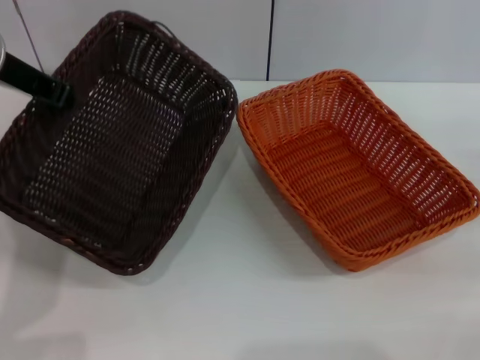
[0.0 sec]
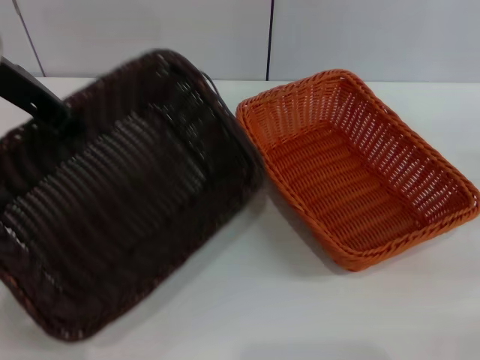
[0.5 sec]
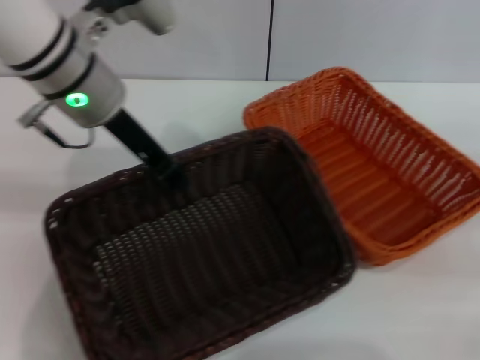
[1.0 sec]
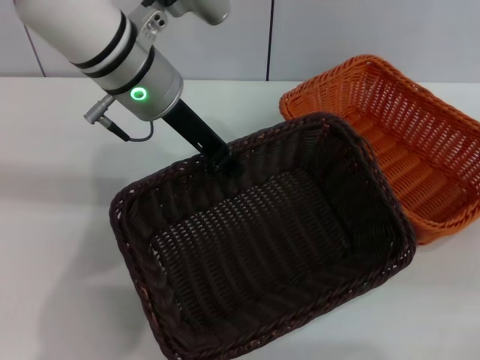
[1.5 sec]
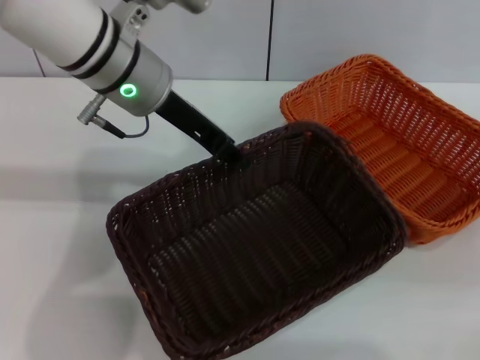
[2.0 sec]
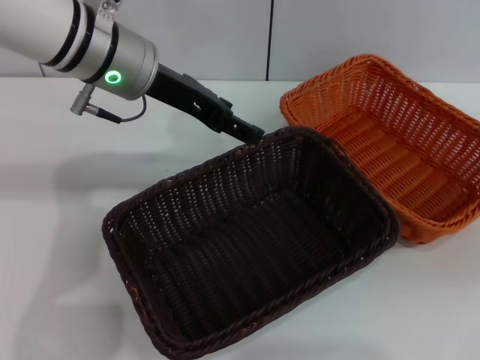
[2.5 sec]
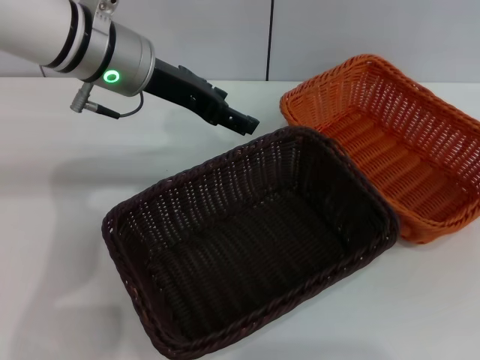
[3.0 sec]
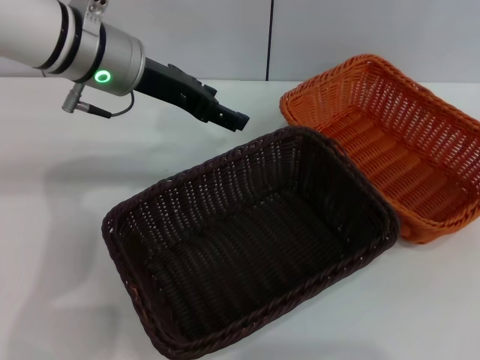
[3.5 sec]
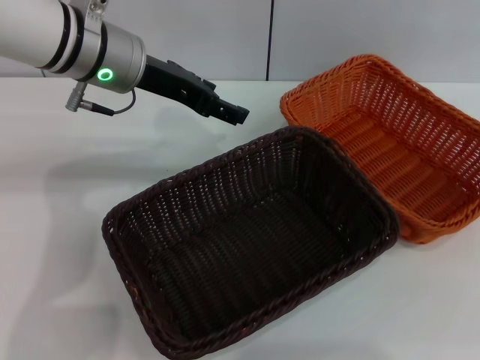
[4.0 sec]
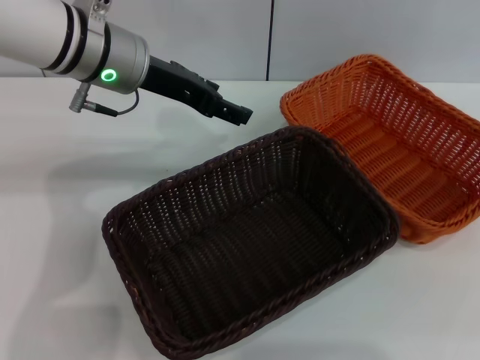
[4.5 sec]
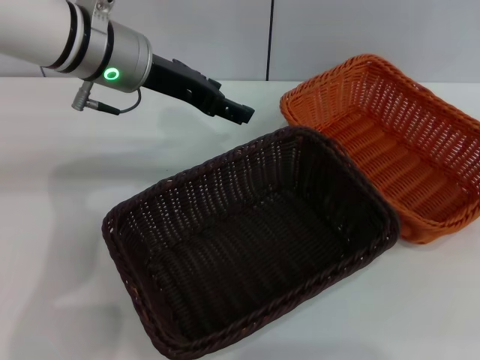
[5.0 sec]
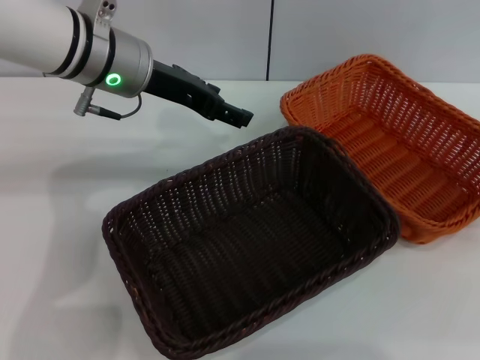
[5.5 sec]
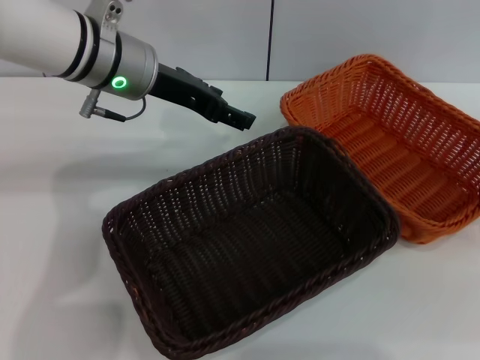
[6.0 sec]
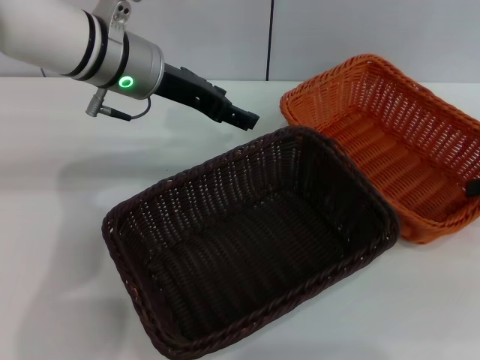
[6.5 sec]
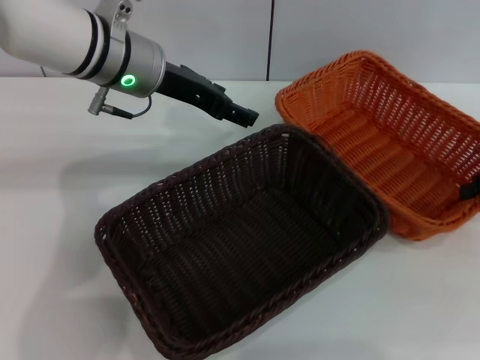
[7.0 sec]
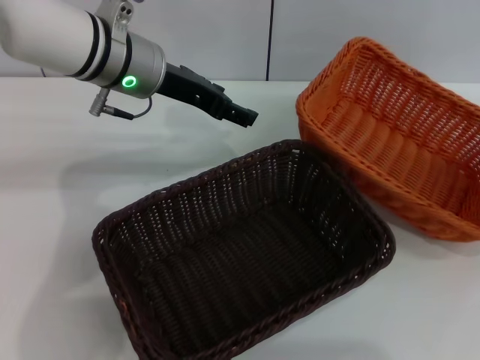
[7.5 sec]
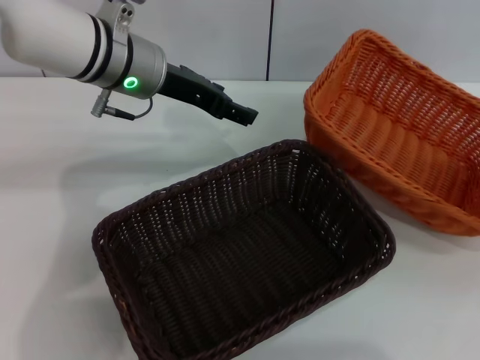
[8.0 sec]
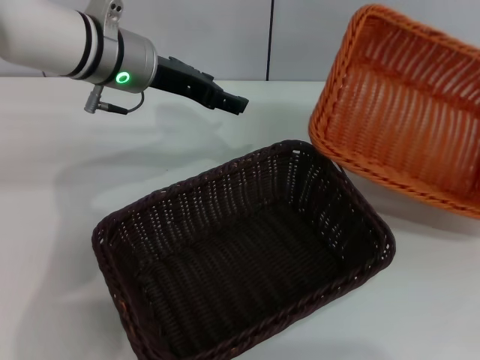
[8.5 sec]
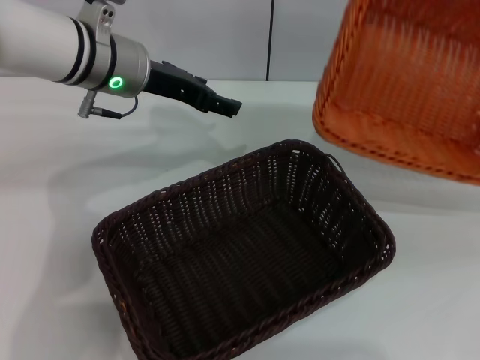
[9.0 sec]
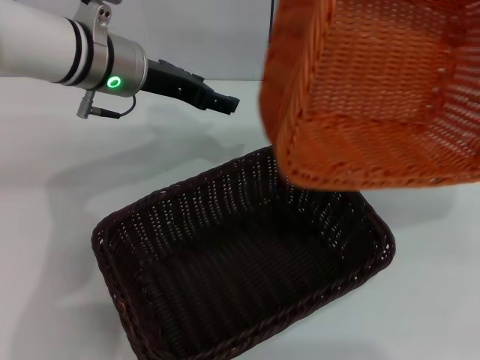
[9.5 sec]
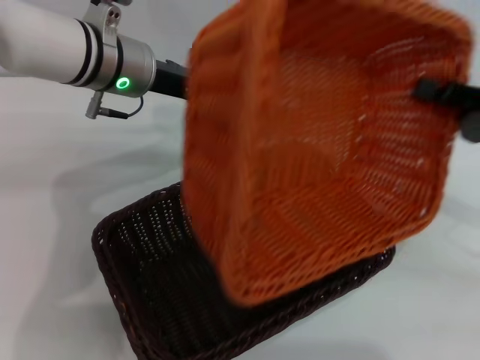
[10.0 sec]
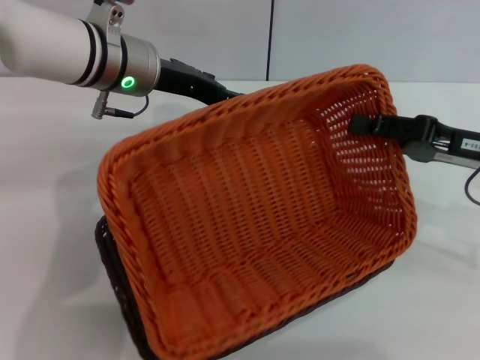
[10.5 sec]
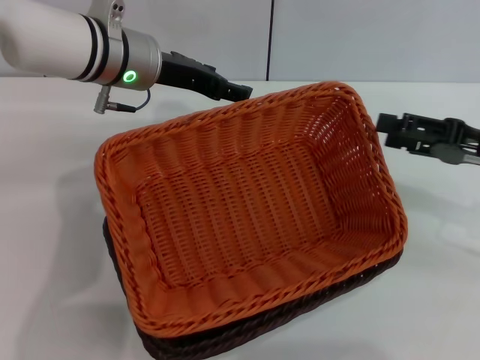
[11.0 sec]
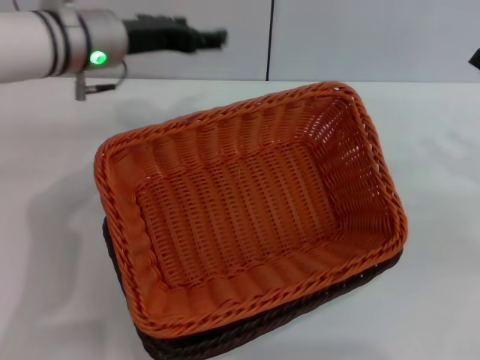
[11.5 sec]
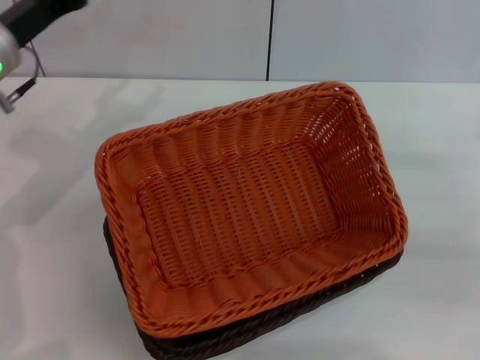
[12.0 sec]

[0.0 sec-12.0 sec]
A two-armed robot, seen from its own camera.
Step, 0.0 sec to 2.0 sec: Place the dark basket in the center of view with the left gripper.
Step, 2.5 sec to 8.0 sec: Pick up the light basket with the right gripper.
Step, 8.5 sec to 10.5 sec: Place the light basket on the dark basket with the right gripper.
0.0 sec to 2.0 sec: The left gripper travels to the right by some 10 cm.
2.0 sec to 4.0 sec: The right gripper is displaced upward by approximately 20 cm. The left gripper opens.
4.0 sec to 6.0 sec: The right gripper is displaced downward by about 10 cm.
6.0 sec to 8.0 sec: The right gripper heads downward, covering roughly 5 cm, and closes its fingers.
8.0 sec to 10.0 sec: The right gripper travels to the left by roughly 10 cm.
10.0 sec to 12.0 sec: The left gripper moves to the left, about 10 cm. Meanwhile the right gripper changes place by some 5 cm, and opens.
